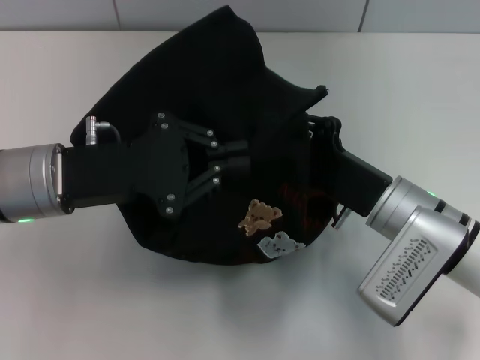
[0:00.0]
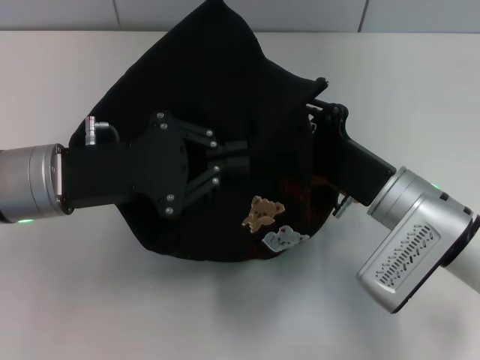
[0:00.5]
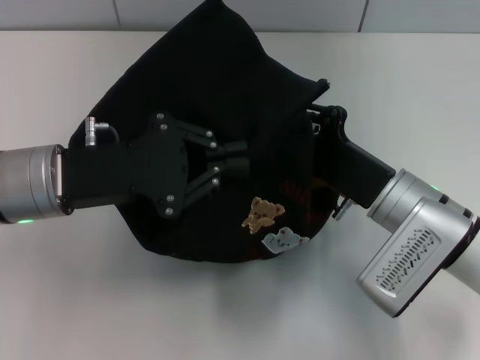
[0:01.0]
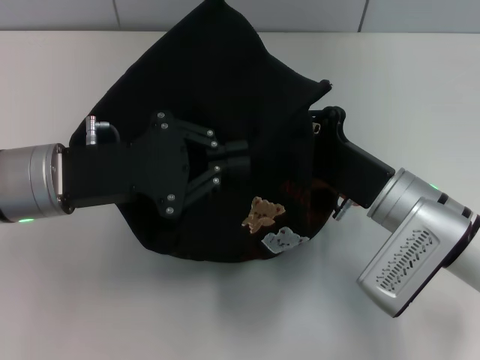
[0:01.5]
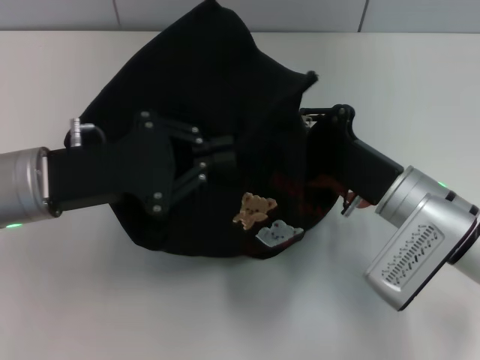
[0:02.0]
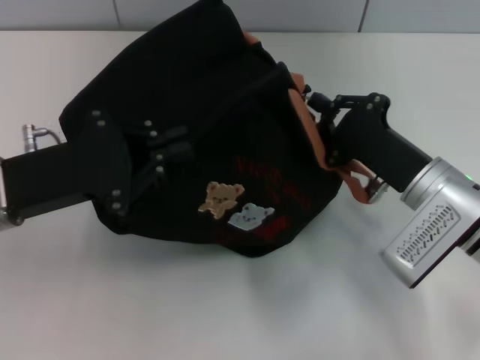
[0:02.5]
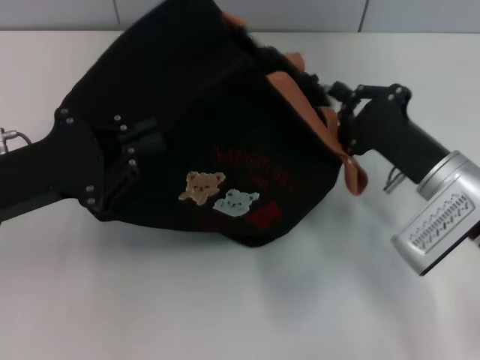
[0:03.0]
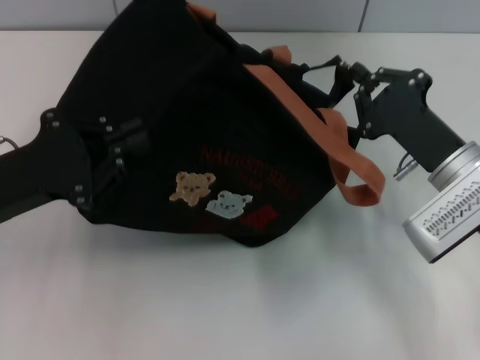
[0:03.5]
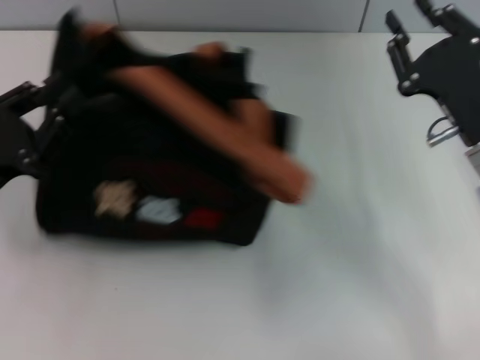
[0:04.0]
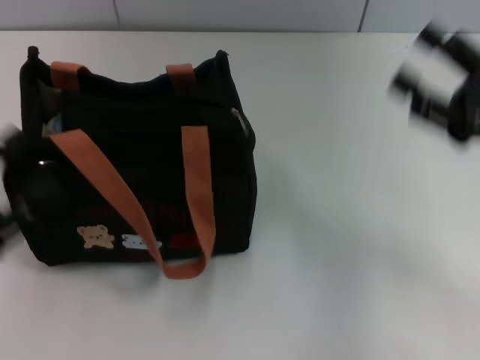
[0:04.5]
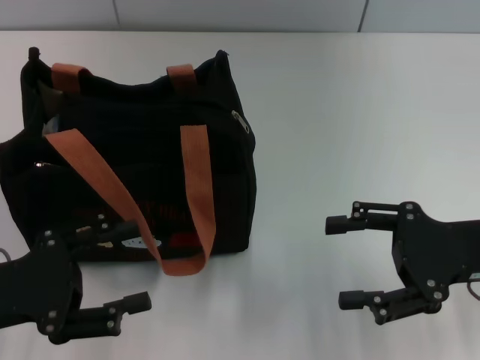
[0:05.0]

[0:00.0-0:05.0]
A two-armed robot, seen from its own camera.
Step, 0:00.0 to 0:03.5: Pull open the zipper with your right hand.
0:00.0 to 0:02.5: The right gripper closes up.
0:02.5 to 0:05.0: The left gripper travels backward by approximately 10 cm, and opens. The right gripper heads to the right and upward, covering approximately 10 cm, and opens.
